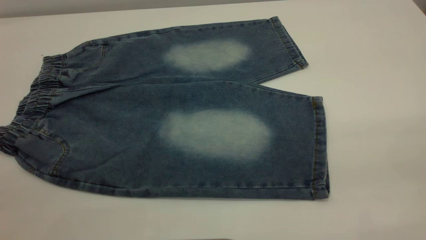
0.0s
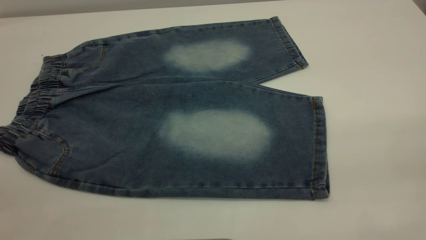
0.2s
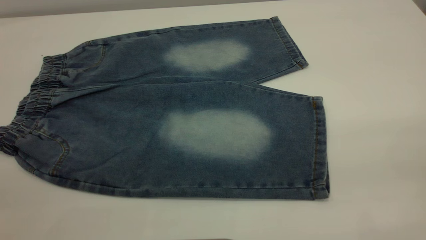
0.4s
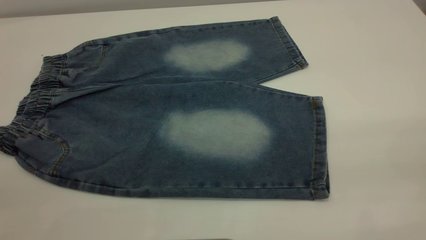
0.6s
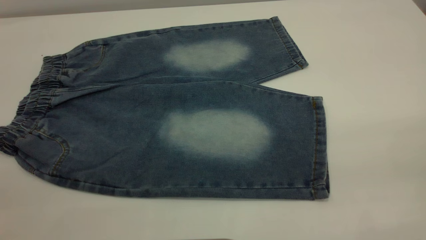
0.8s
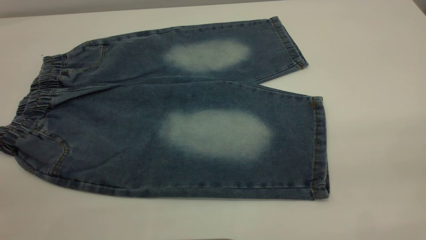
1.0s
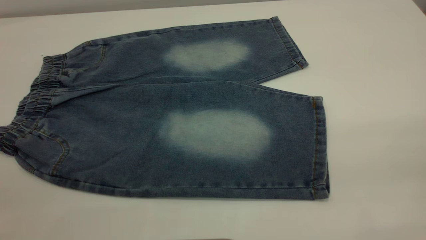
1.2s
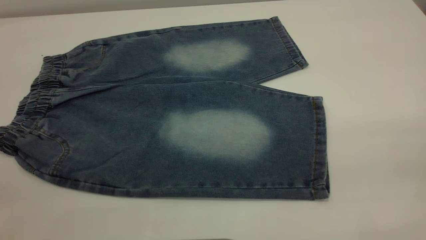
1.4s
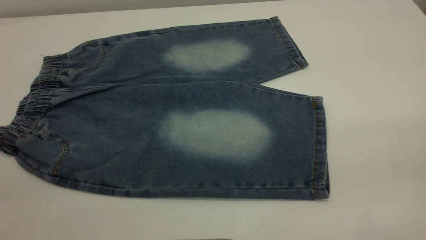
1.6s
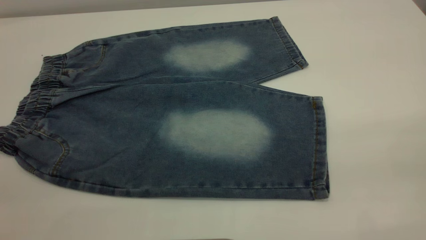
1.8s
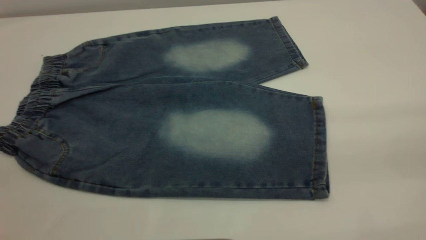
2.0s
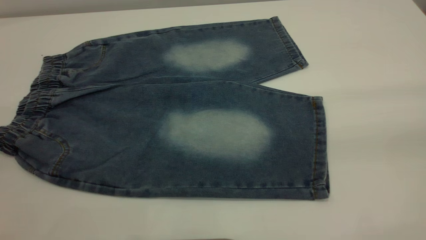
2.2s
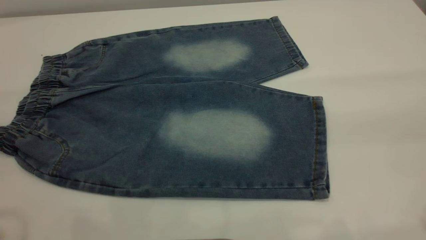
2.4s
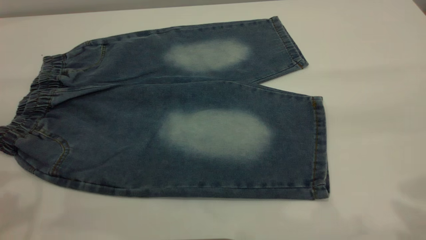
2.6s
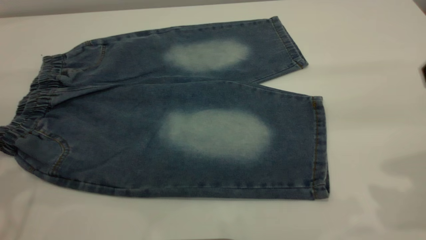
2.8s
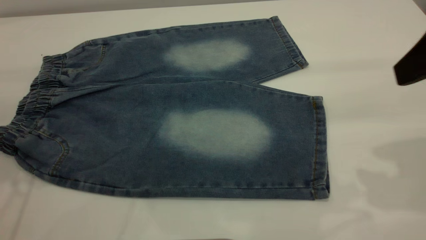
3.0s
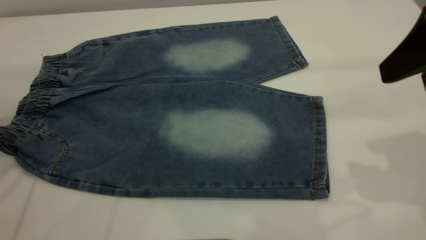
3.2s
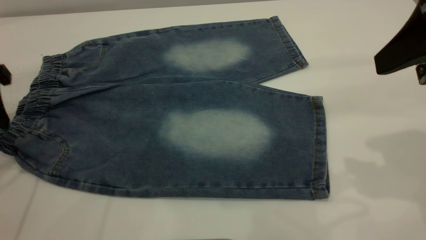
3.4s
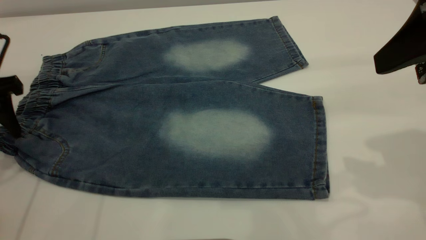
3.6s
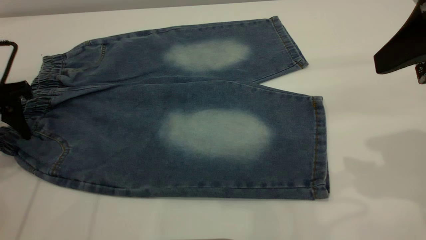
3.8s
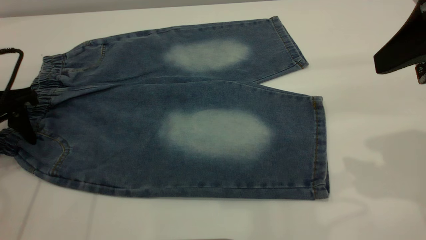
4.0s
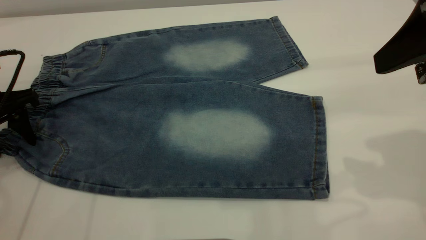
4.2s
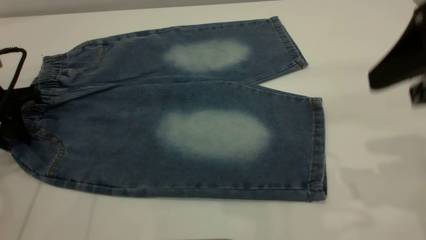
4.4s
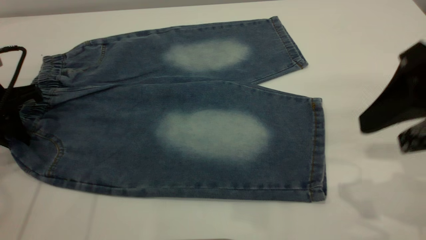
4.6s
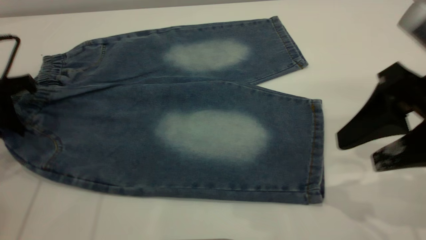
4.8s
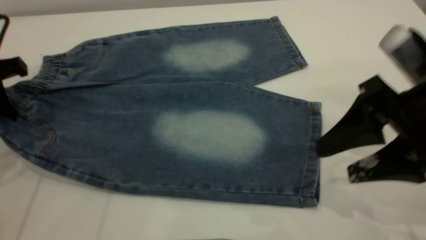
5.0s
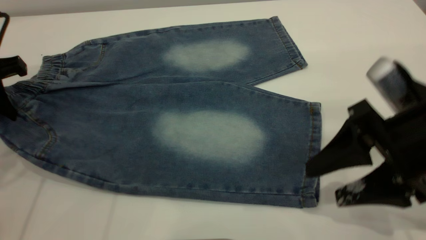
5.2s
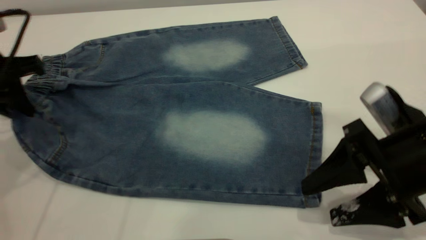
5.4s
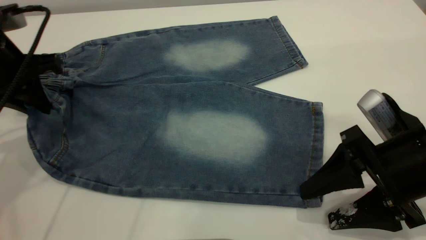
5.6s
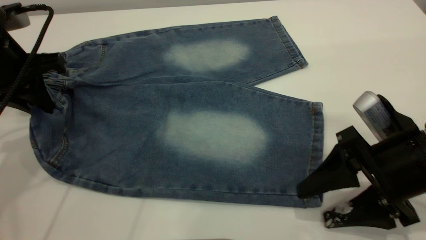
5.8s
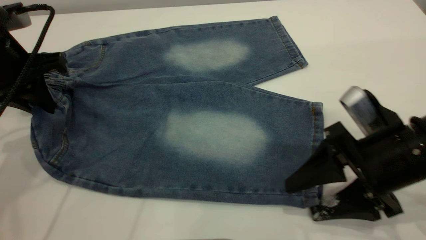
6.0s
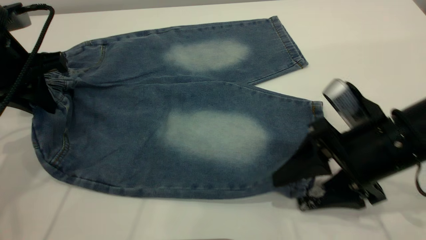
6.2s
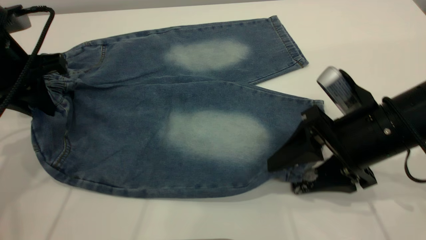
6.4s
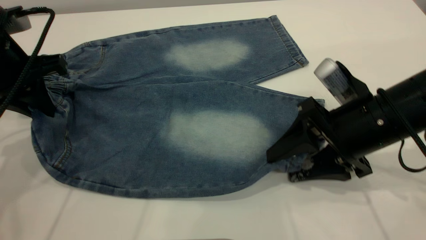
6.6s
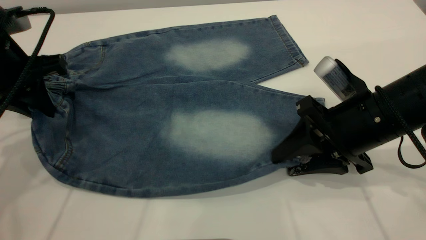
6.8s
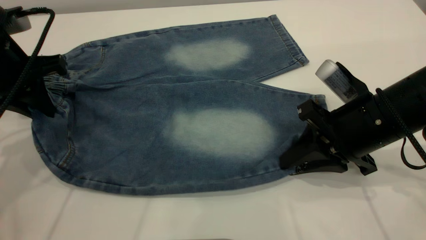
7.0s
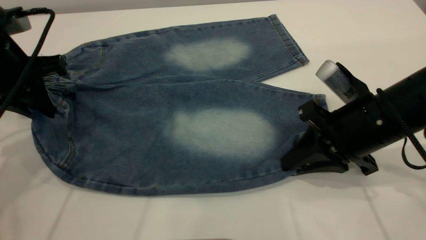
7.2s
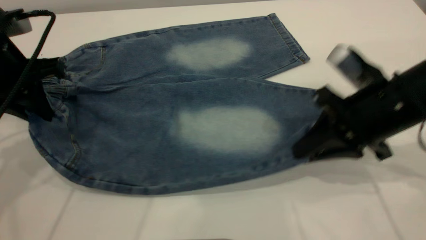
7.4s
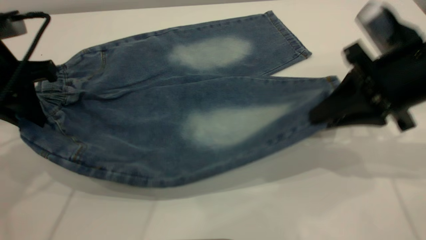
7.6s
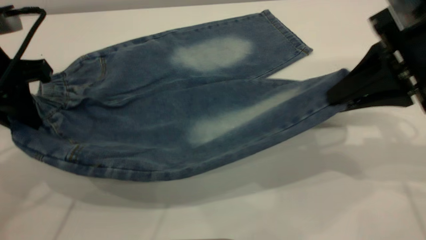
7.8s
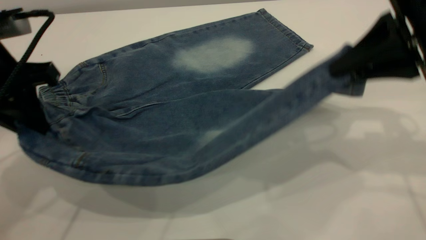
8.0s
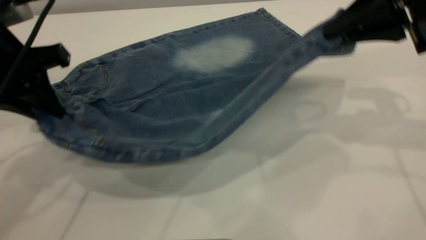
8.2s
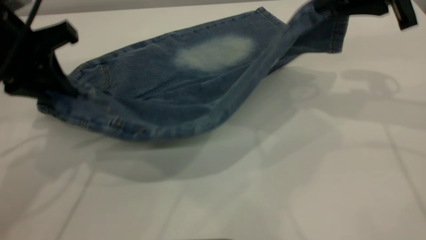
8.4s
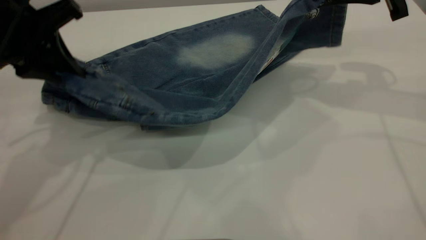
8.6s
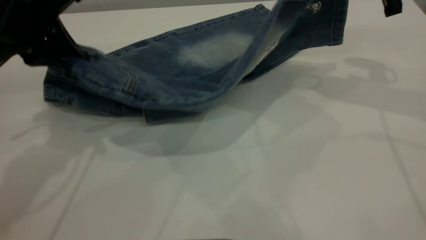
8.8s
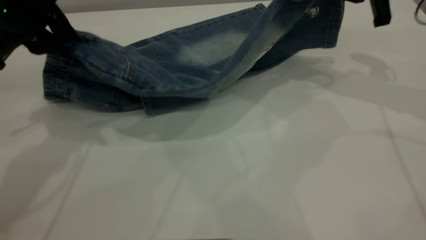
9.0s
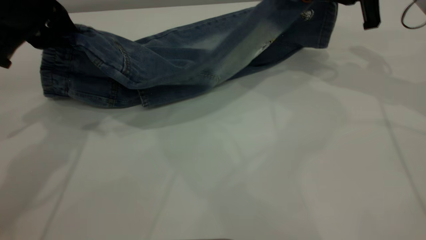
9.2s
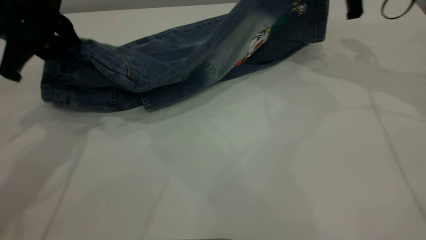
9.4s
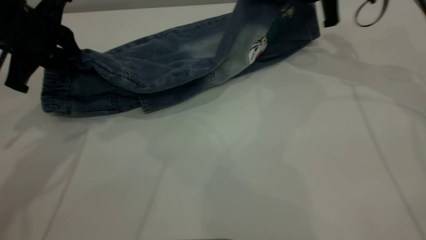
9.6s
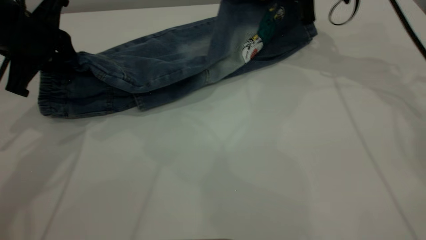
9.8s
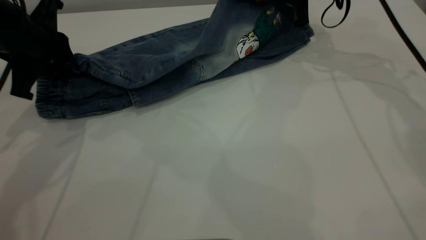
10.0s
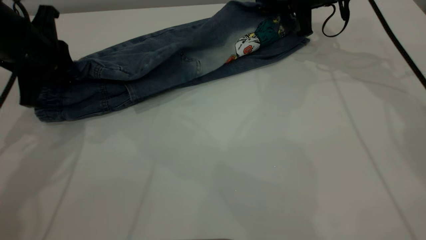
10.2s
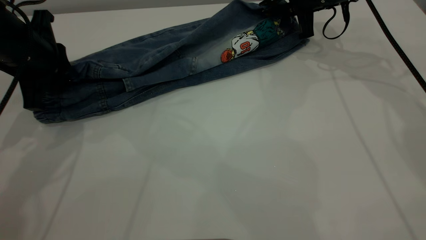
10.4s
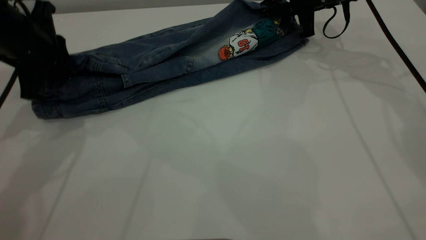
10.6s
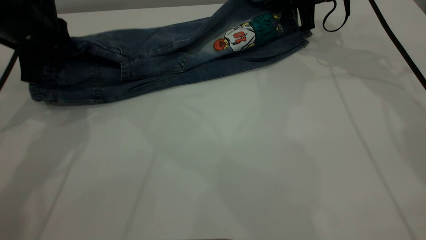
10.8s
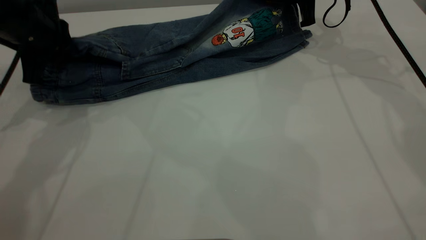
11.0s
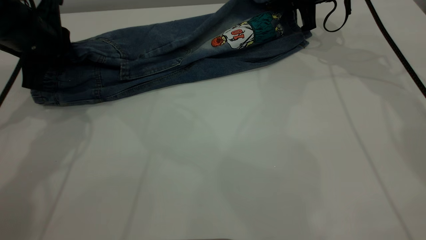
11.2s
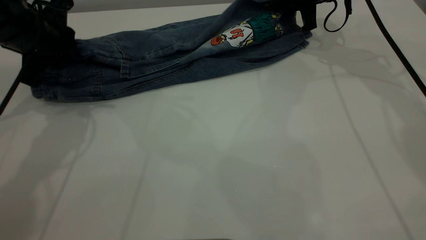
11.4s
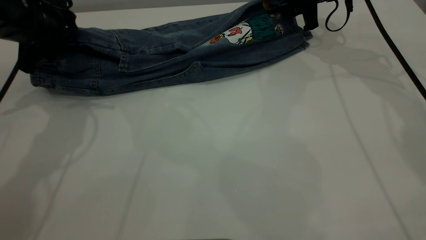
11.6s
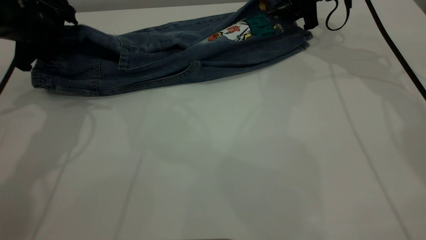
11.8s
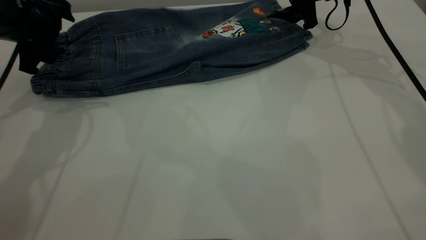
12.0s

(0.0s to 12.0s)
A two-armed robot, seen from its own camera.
0.0s - 1.6s: The two grippers keep their place.
1.6s - 3.0s: The right gripper goes about 20 cm forward.
3.0s - 4.4s: The left gripper goes approximately 10 cm downward, and closes.
4.4s - 6.0s: The left gripper shifts some 10 cm to the right and upward; the right gripper shifts some 15 cm downward.
6.0s - 7.6s: The right gripper heads upward and forward, covering roughly 10 cm, and closes.
7.6s - 9.0s: The right gripper moves forward, about 15 cm. The left gripper ends up about 5 cm from where it was.
9.0s - 10.4s: The left gripper heads downward, covering about 5 cm. Meanwhile the right gripper goes about 15 cm forward, downward and to the left.
10.4s - 12.0s: The left gripper opens up; the right gripper opens its fingers.

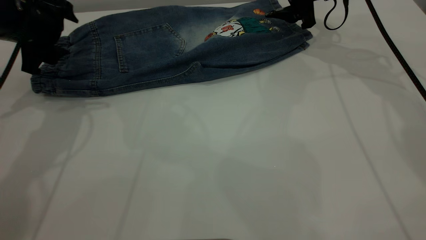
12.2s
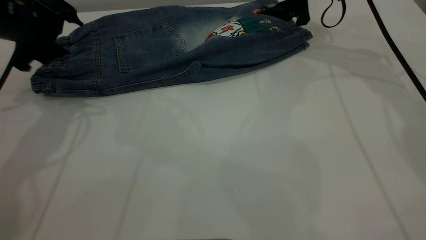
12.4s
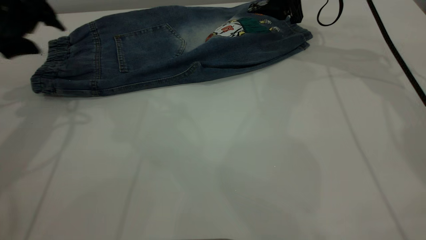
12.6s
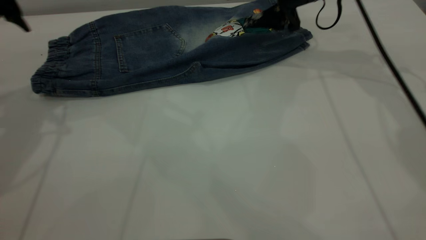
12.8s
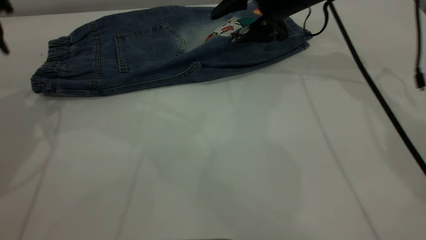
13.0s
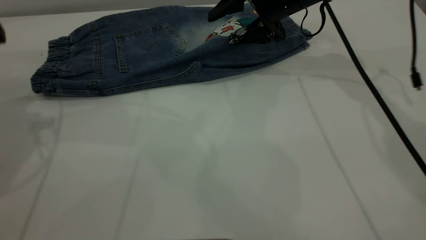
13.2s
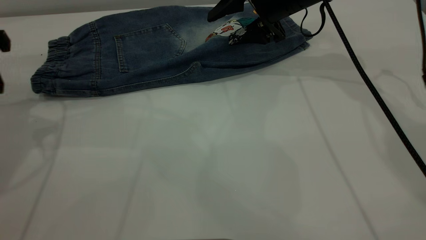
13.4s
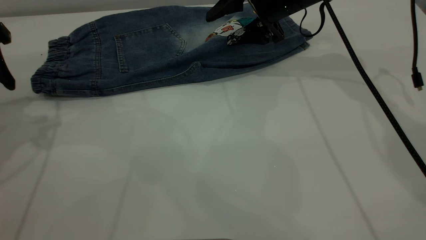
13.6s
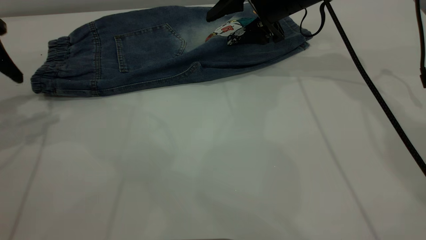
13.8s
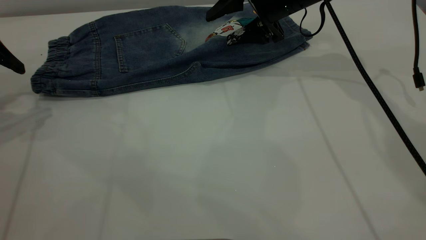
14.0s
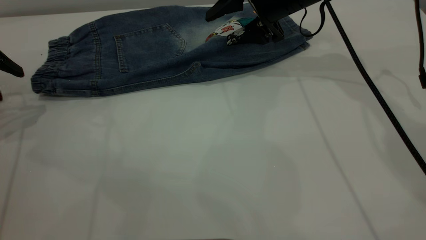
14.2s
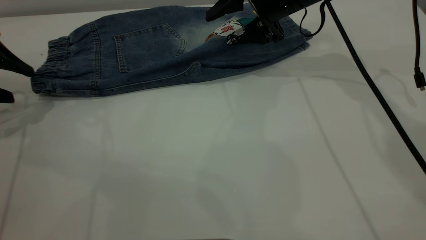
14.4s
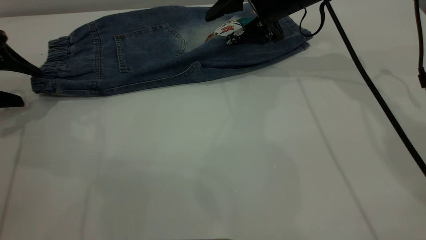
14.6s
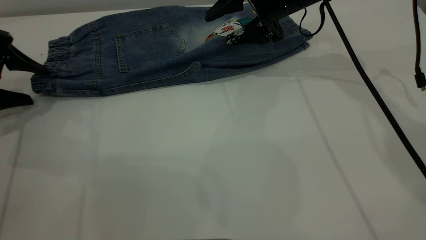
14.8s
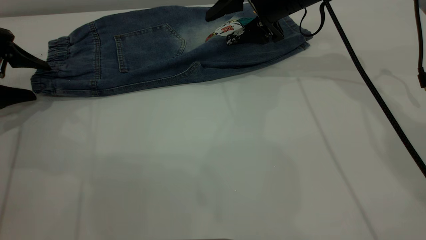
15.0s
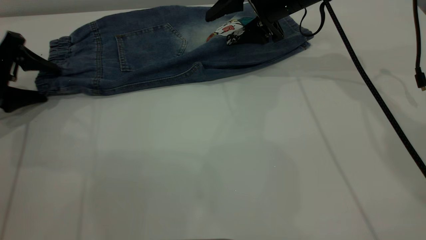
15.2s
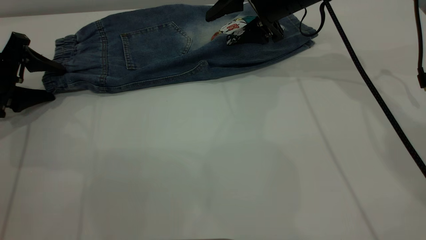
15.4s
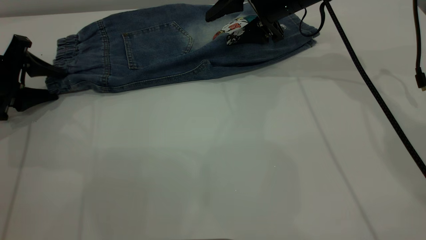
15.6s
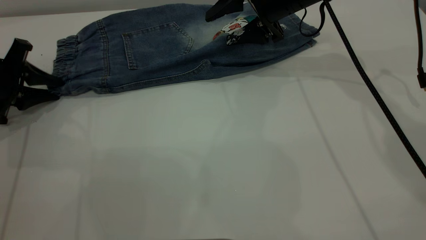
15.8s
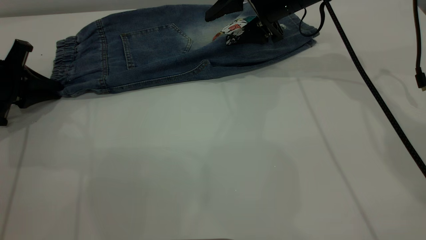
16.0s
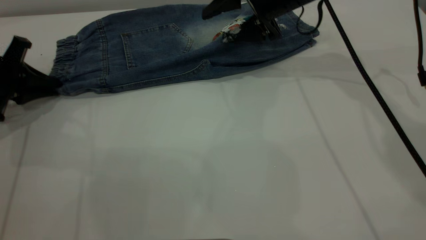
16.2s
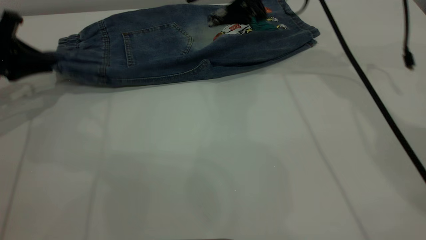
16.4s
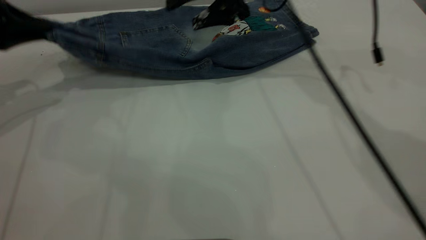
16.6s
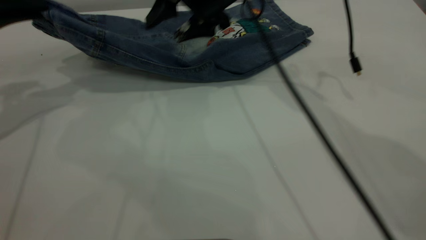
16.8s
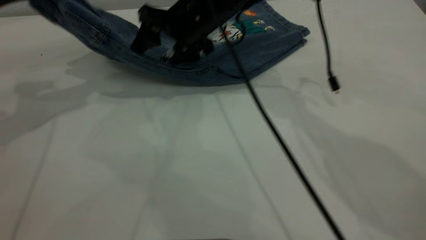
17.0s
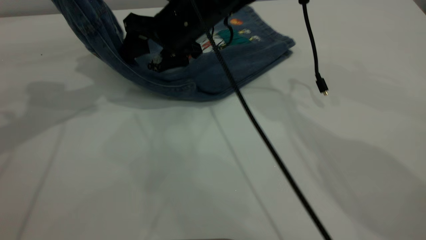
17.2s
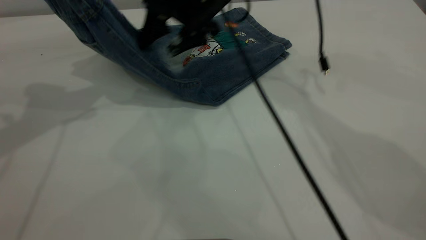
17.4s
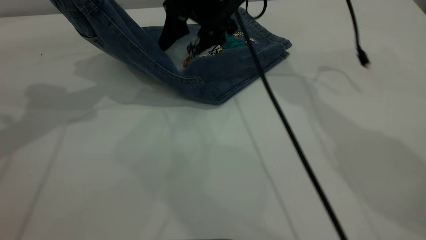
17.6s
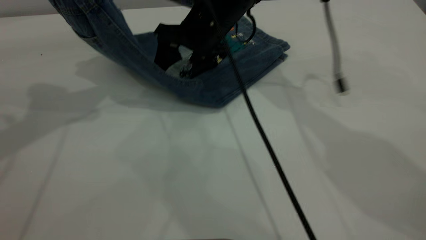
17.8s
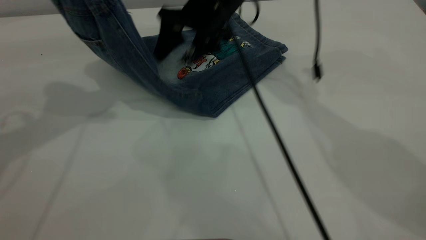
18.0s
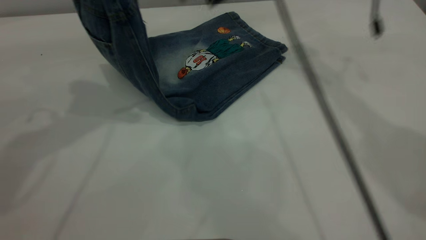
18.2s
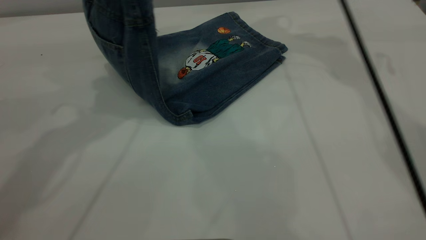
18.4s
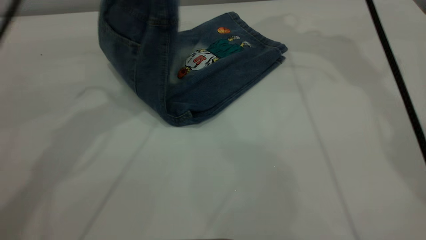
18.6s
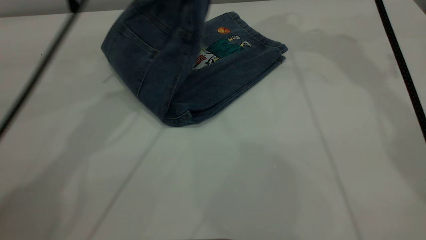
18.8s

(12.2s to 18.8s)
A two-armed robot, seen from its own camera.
12.2s - 13.8s: The right gripper is displaced to the left by about 5 cm. Meanwhile the left gripper shifts some 10 cm to the left and backward.
13.8s - 15.4s: The left gripper moves downward, some 10 cm.
15.4s - 17.2s: The left gripper shifts approximately 20 cm upward, and closes, while the right gripper goes some 15 cm to the left.
17.2s - 18.8s: The left gripper travels to the right and forward by roughly 20 cm. The right gripper is displaced upward and to the right by roughly 25 cm.
